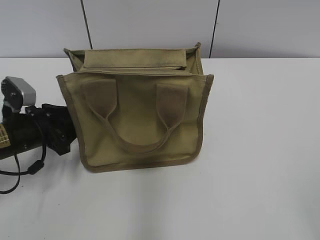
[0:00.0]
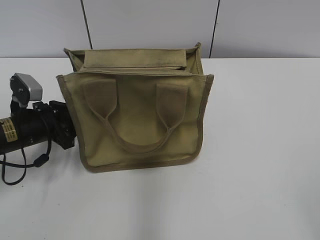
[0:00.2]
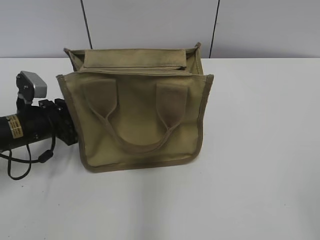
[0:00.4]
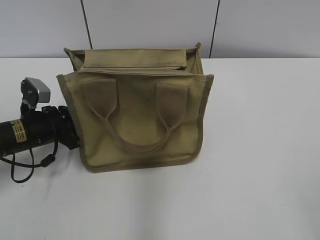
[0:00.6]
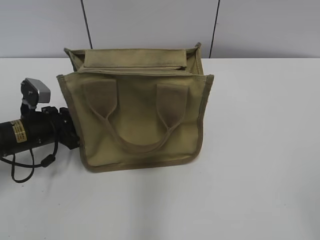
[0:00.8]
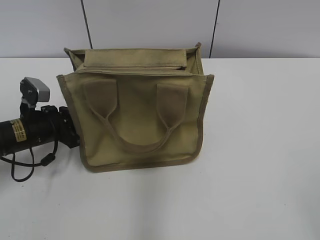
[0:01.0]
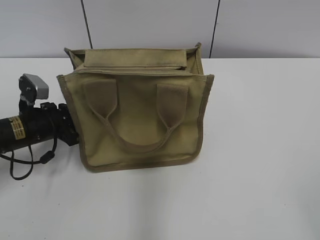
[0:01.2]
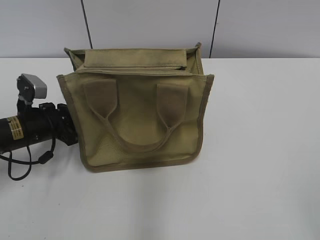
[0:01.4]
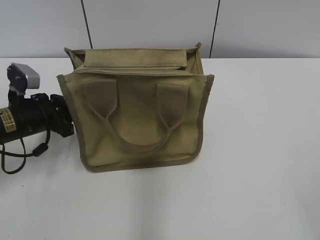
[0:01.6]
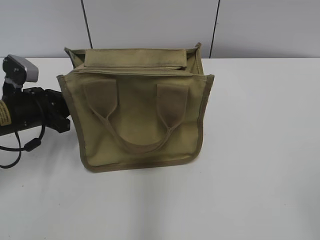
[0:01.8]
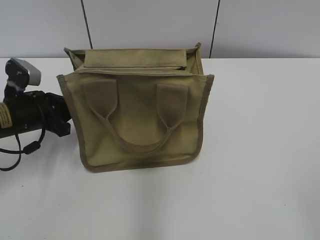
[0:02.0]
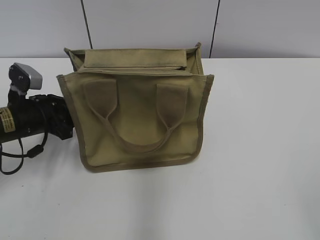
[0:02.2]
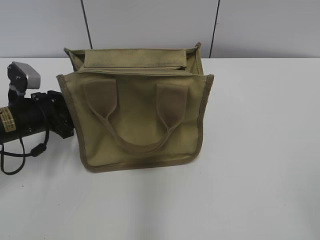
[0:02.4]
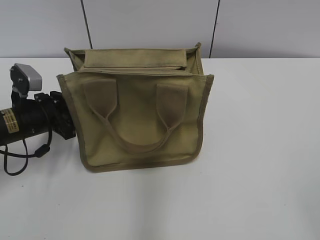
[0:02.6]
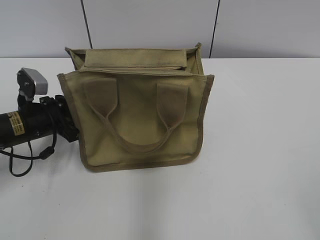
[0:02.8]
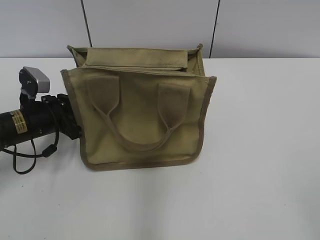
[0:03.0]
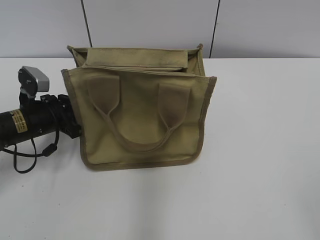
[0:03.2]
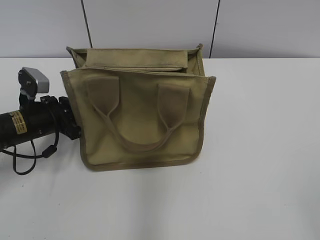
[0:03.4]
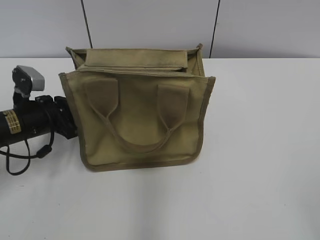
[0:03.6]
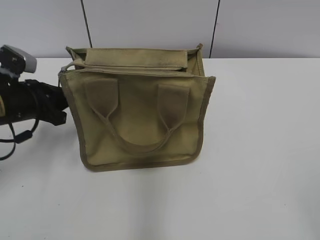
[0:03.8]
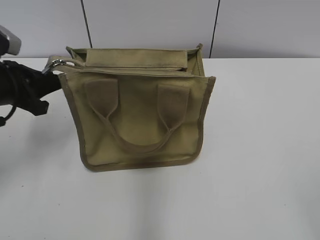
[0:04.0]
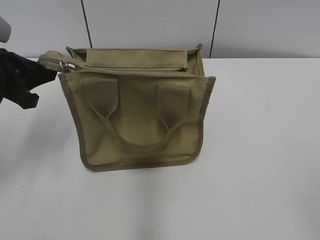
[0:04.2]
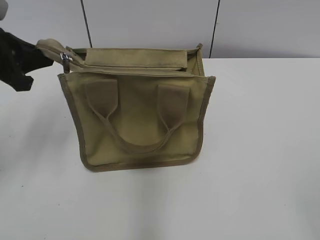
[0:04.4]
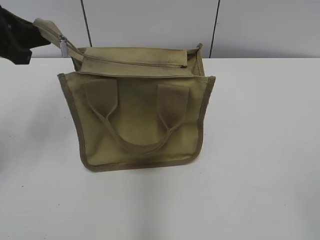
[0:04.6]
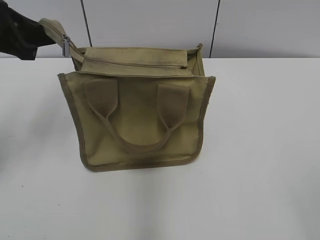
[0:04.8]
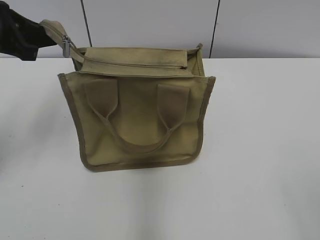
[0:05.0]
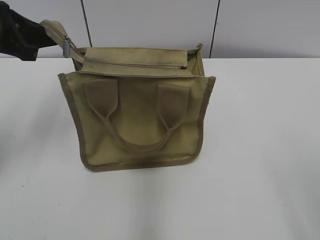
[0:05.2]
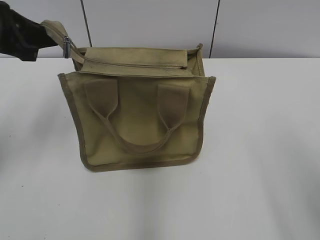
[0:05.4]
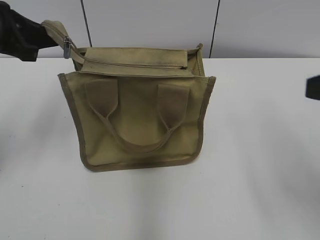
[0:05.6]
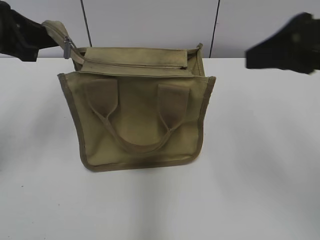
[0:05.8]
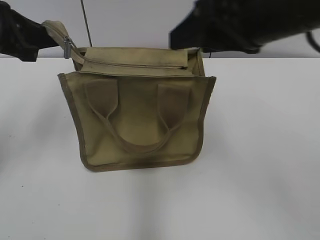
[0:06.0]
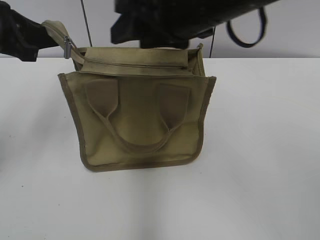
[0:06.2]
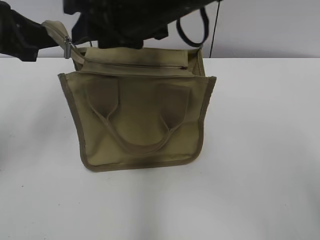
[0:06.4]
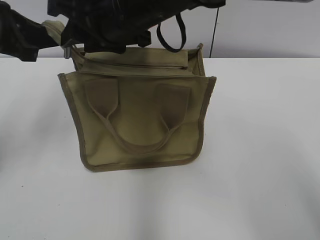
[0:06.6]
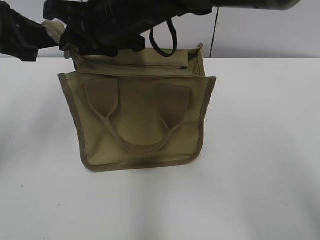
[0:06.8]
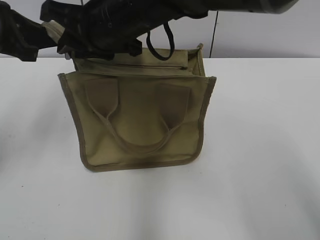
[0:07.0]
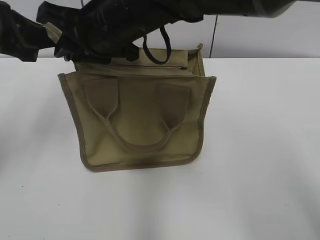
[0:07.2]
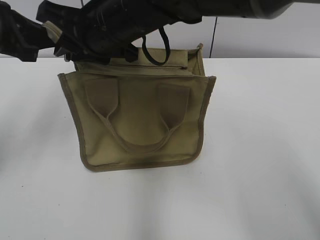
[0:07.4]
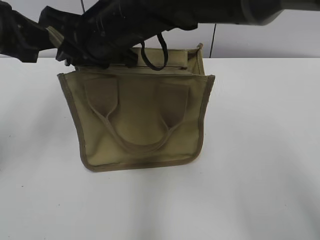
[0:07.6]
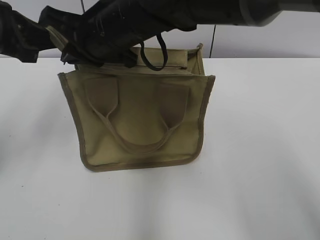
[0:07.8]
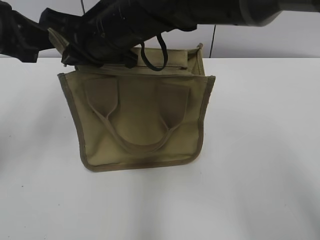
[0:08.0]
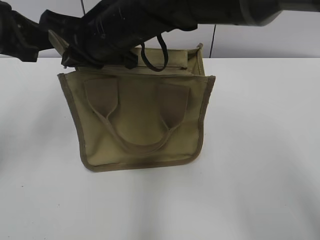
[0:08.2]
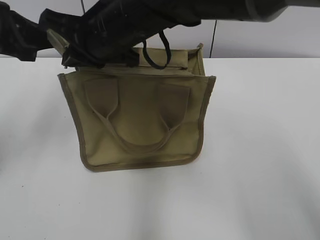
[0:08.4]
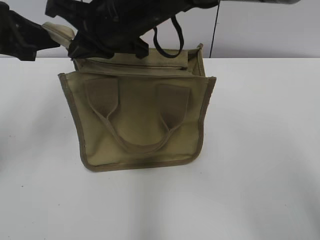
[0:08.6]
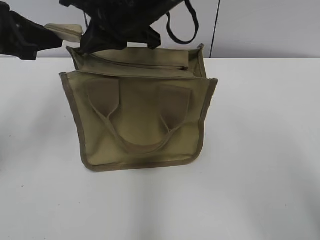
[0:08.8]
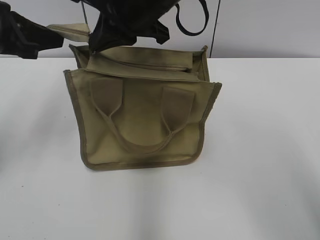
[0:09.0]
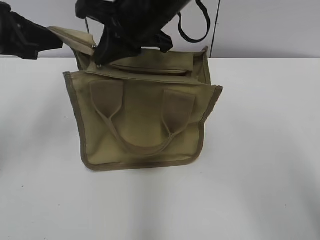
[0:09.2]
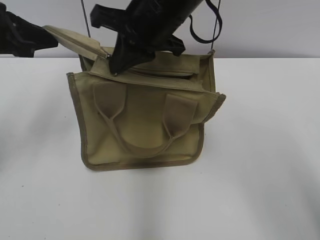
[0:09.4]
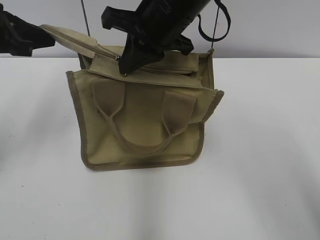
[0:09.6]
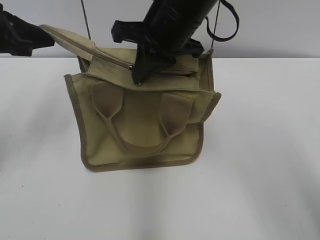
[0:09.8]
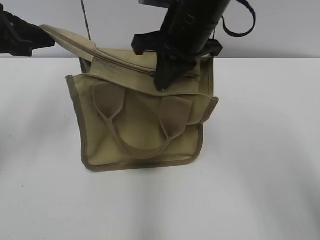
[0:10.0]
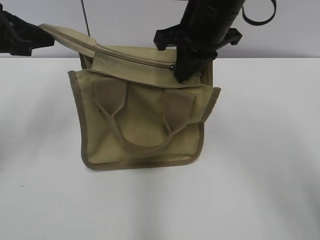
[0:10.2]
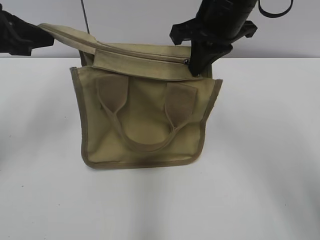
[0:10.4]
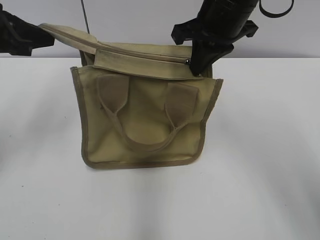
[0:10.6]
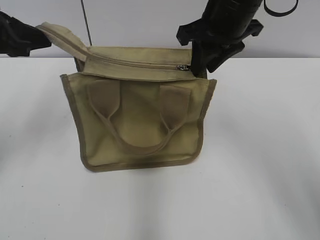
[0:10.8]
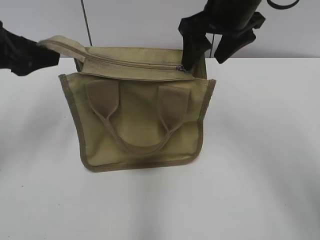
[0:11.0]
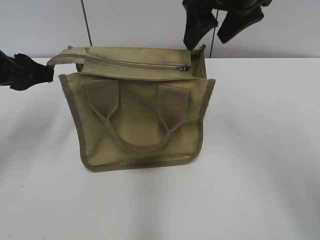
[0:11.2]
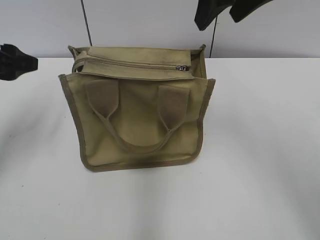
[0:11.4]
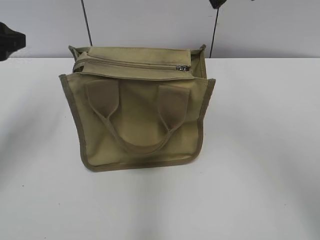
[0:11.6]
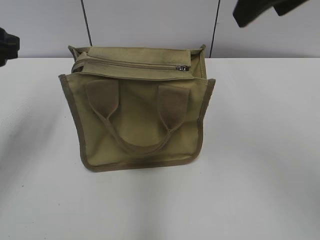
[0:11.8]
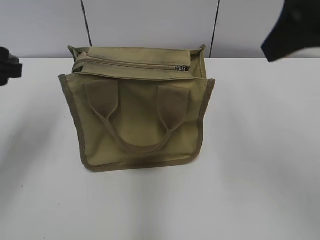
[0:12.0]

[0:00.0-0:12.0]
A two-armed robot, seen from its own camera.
Step, 0:00.0 to 0:10.8: Zip up the bag with your right hand.
Step, 0:11.0 to 0:11.2: Grab the zipper with your left hand.
0:00.0 to 0:01.6: The left gripper closes its fingers.
0:01.6 to 0:03.0: The left gripper opens up.
0:03.0 to 0:04.4: The left gripper heads upward, covering about 15 cm, and closes up.
0:04.4 to 0:06.0: The right gripper shifts about 30 cm forward and to the left.
0:06.0 to 0:07.6: The right gripper goes roughly 20 cm to the left and forward, and closes up.
0:07.6 to 0:09.0: The right gripper changes place by approximately 5 cm, and closes.
0:09.0 to 0:10.4: The right gripper heads to the right, covering about 10 cm.
0:10.4 to 0:12.0: The left gripper shifts by approximately 5 cm, and opens up. Meanwhile the right gripper moves backward, upward and to the right, some 15 cm, and opens its fingers.

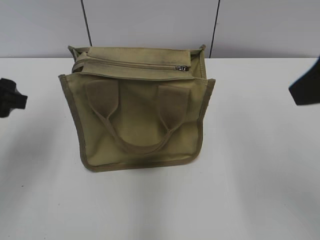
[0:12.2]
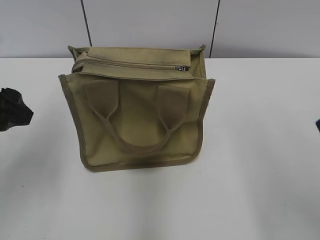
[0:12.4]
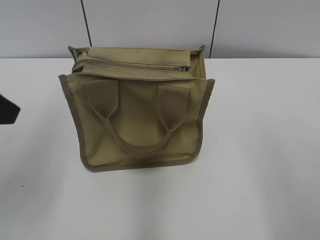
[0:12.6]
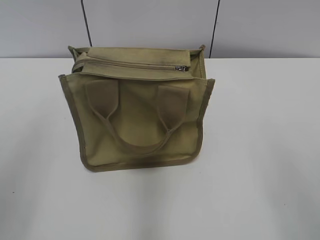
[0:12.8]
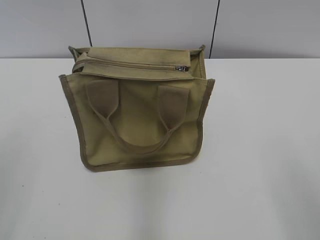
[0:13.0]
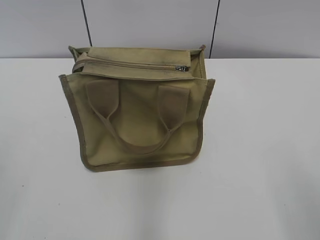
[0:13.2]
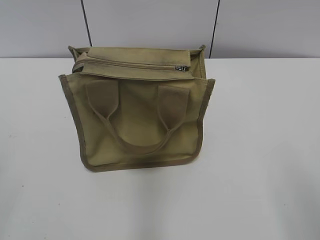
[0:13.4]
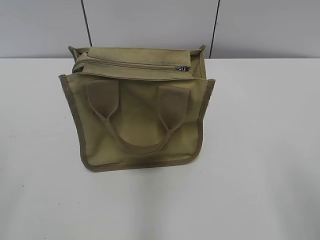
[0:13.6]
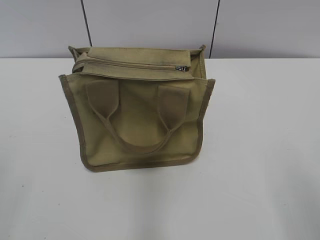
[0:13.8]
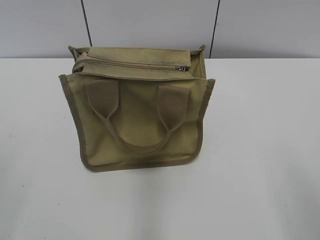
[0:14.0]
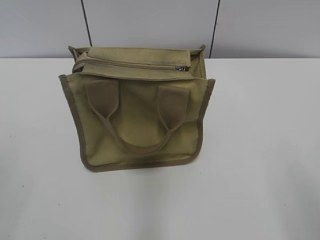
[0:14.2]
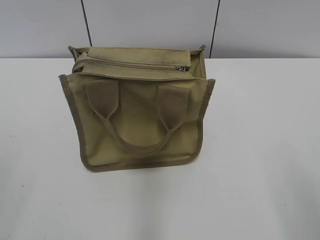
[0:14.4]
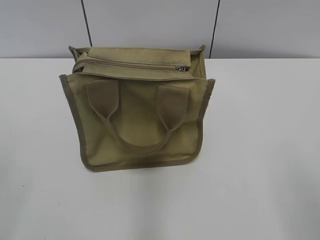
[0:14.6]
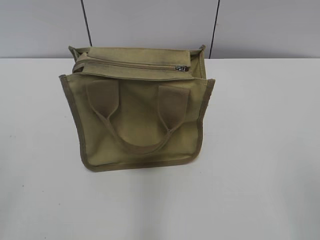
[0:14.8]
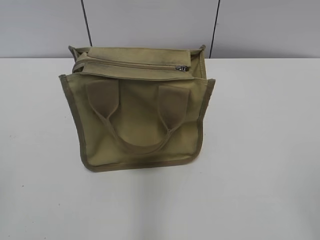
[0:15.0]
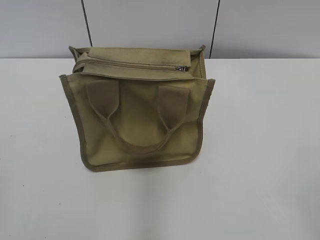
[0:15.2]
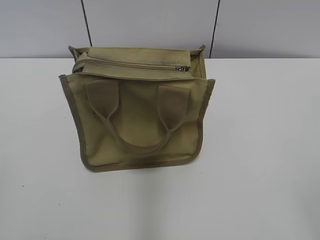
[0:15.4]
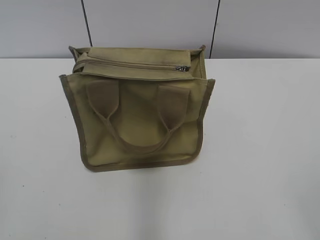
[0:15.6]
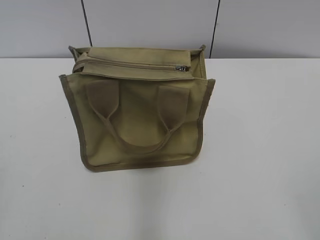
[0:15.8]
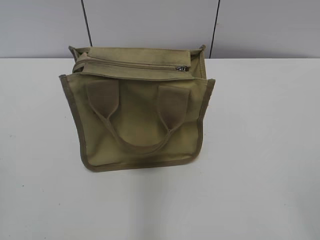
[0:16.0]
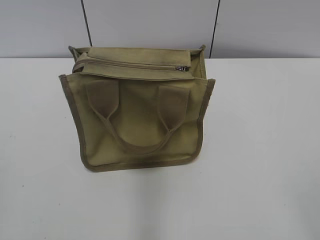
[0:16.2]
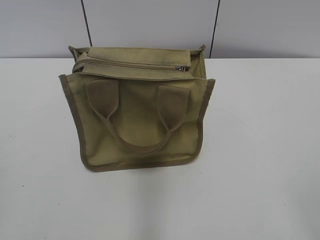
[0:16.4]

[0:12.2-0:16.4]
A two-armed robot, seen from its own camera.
0:12.2 to 0:13.6: The left gripper travels backward by roughly 25 cm. The right gripper is displaced backward, downward and to the right by some 20 cm.
